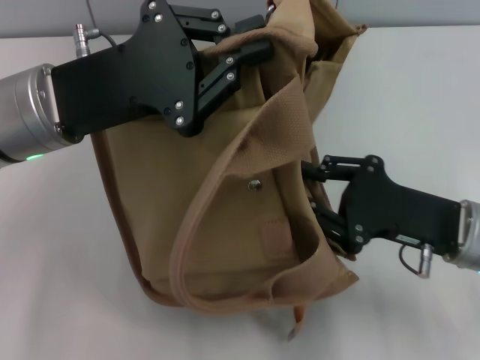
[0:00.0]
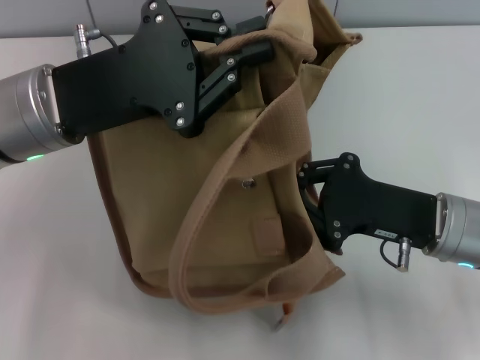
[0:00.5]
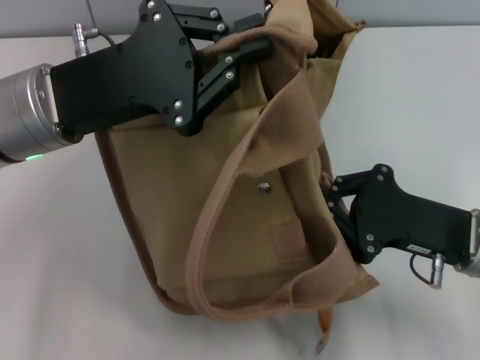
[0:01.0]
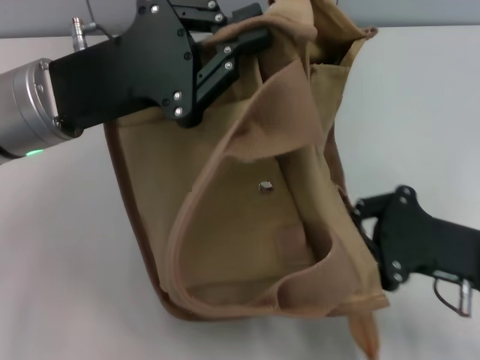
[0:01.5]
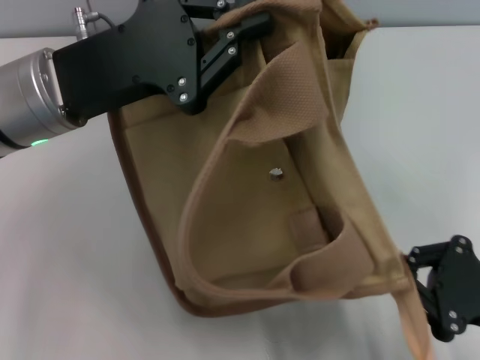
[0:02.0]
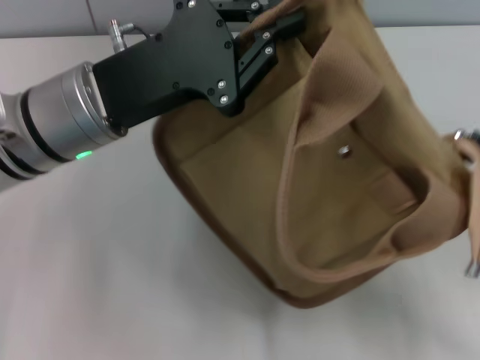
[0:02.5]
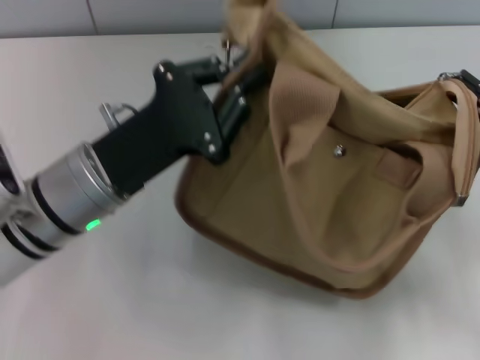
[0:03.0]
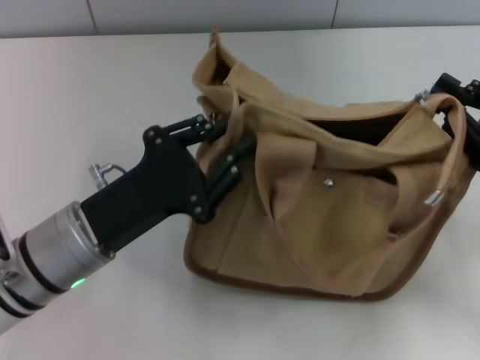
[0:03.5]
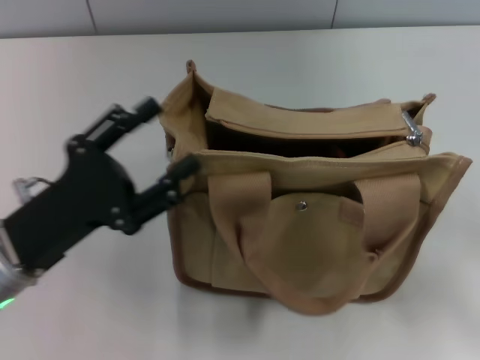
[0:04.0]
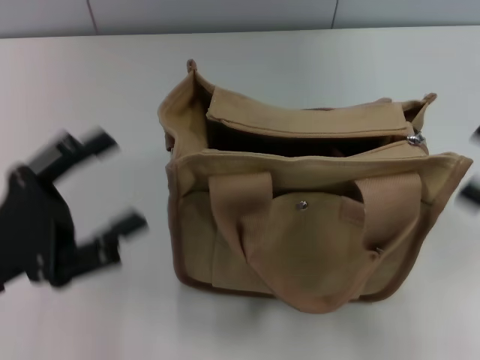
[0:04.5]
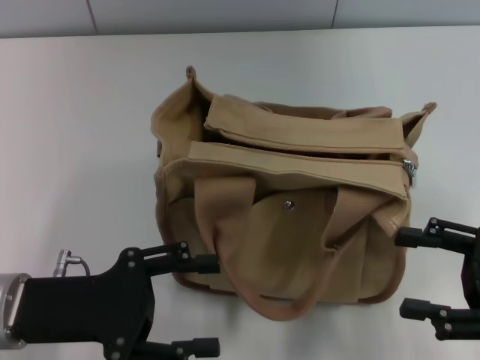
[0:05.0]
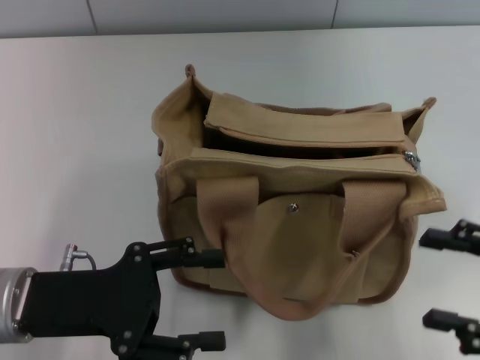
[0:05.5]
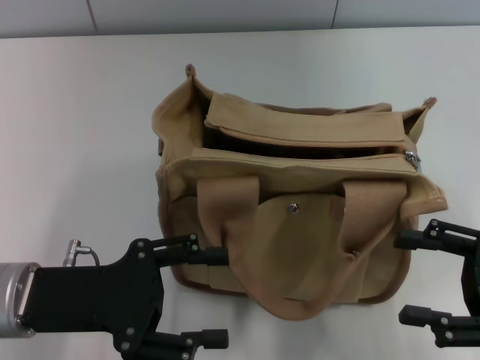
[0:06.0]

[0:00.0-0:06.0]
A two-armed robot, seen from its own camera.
Step, 0:00.0 to 0:03.5: Pull open the zipper with your right hand.
0:00.0 to 0:02.0: The right gripper shifts roughly 10 cm backward and to the right, and closes.
0:02.0 to 0:04.0: The right gripper heads to the right and forward, covering roughly 10 cm, and opens its fingers. The left gripper is displaced backward and downward by about 15 cm, and opens up.
0:04.0 to 0:06.0: The left gripper opens; the right gripper moves approximately 5 cm, and opens.
